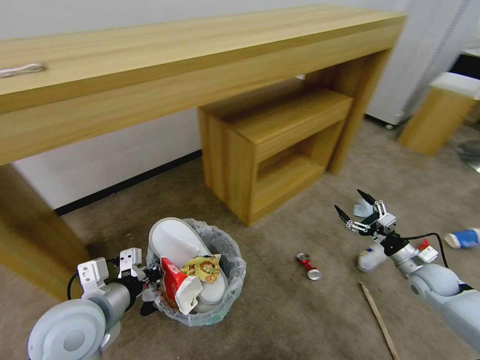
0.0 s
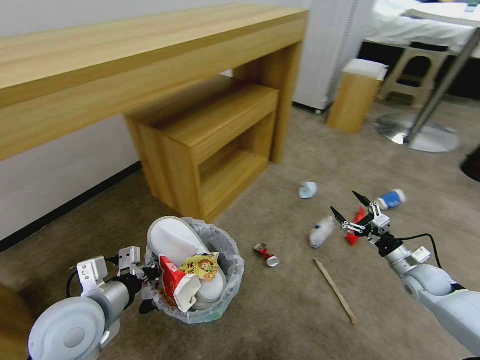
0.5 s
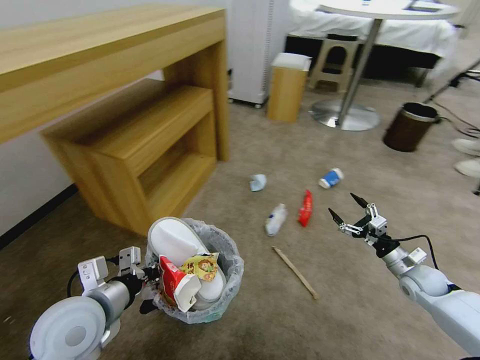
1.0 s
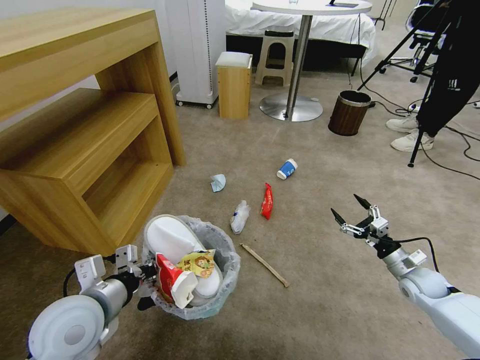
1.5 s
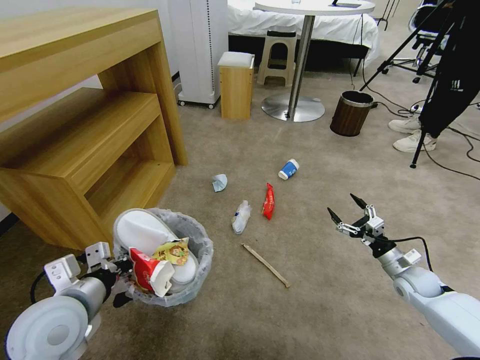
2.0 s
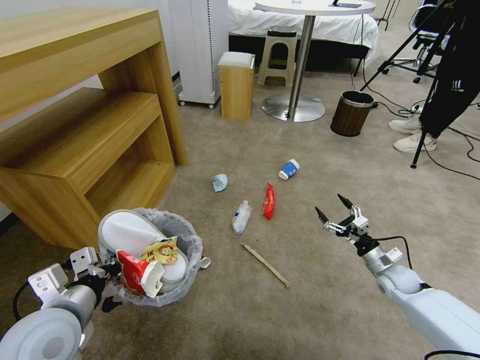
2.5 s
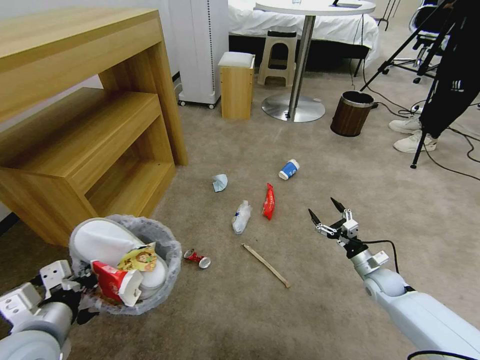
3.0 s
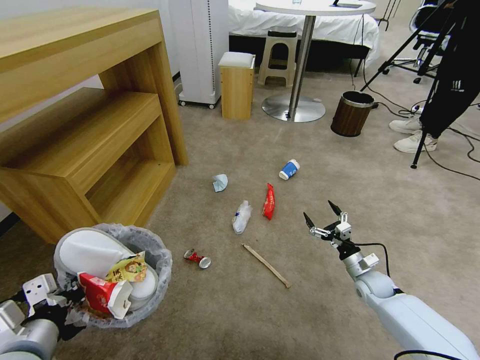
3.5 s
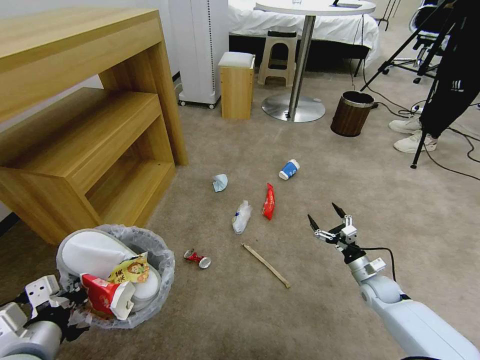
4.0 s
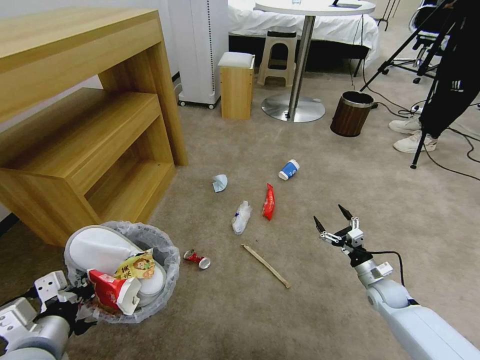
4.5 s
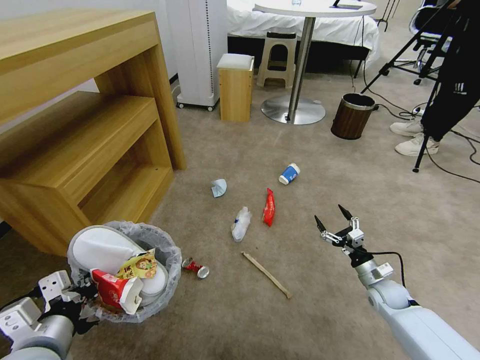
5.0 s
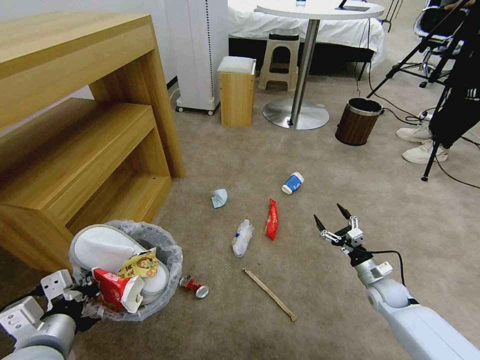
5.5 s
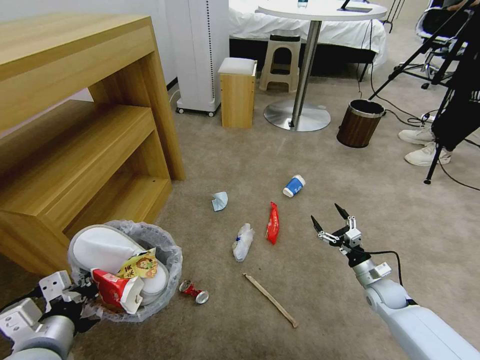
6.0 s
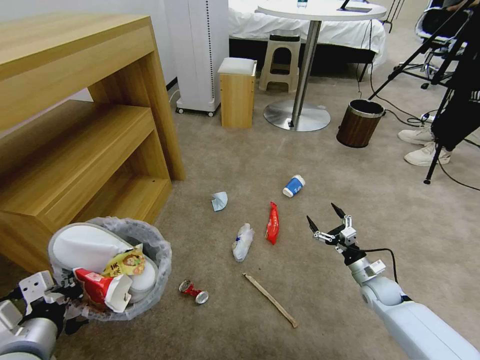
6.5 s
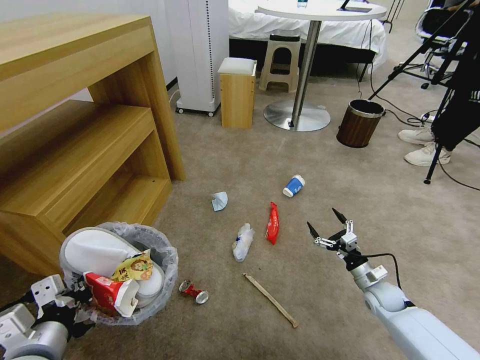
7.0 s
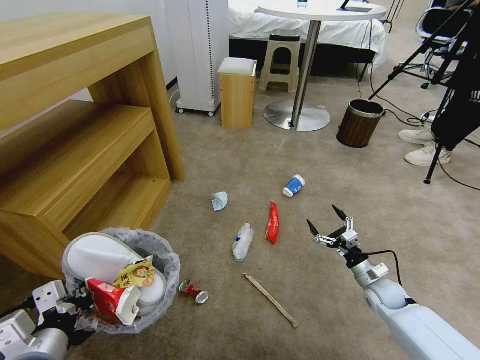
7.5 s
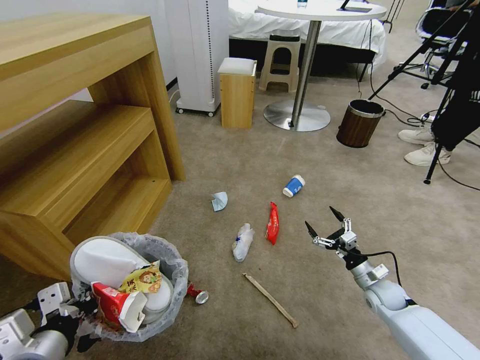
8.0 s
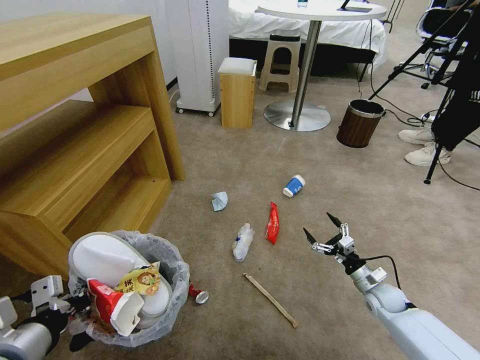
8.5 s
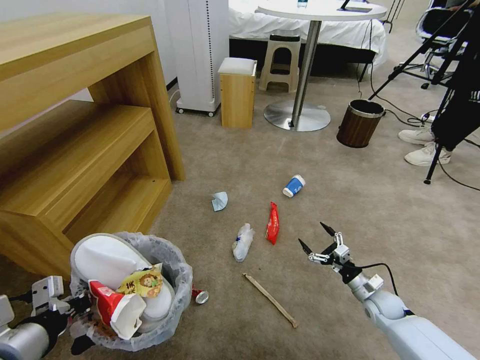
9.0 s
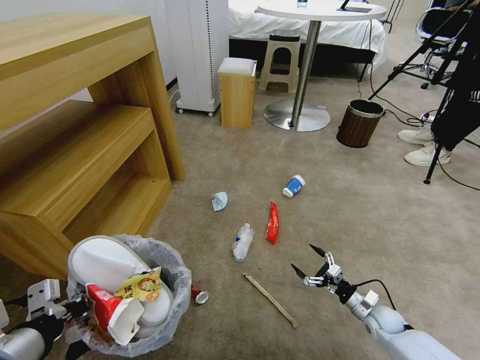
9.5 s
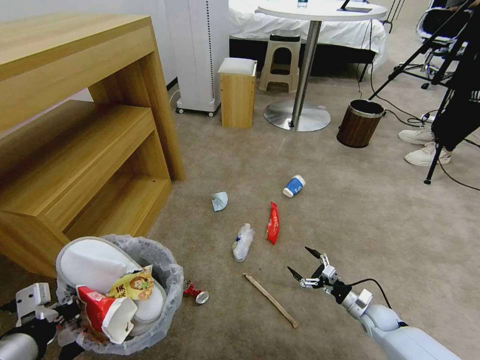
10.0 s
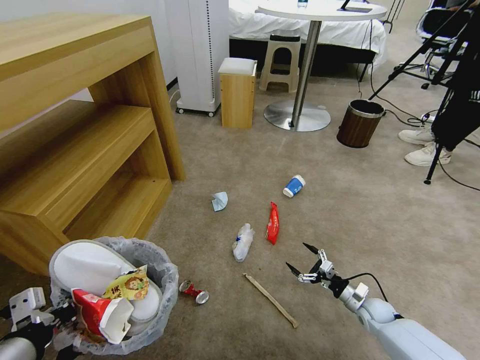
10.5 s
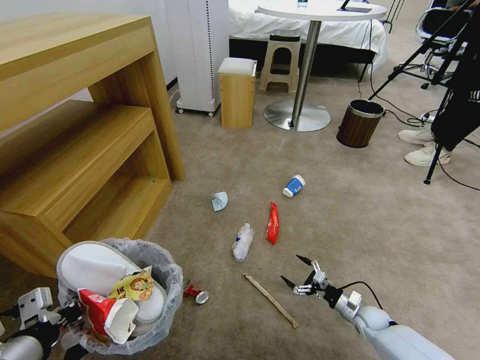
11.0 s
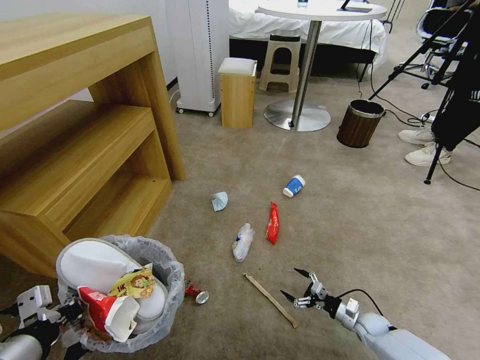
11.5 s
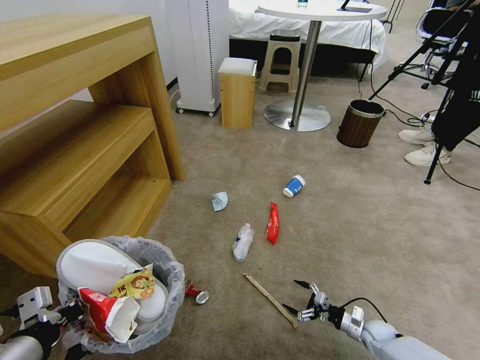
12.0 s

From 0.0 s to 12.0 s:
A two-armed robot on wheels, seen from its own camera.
Task of the whole recording: Pick up the trash bin and place the garbage on the floor into it.
From 2.0 s to 4.0 s: The left gripper heads backward, covering some 10 cm, while the right gripper moves to the left and downward, approximately 10 cm.
From 6.0 s to 8.0 s: The grippers move only a little.
From 8.0 s to 10.0 s: The right gripper travels downward by about 10 cm. The left gripper ends up roughly 5 cm from where it was.
From 10.0 s to 12.0 s: The right gripper travels downward by roughly 5 cm.

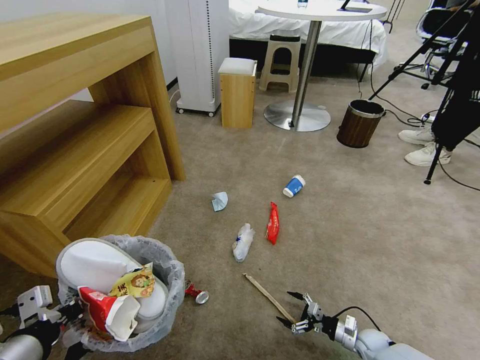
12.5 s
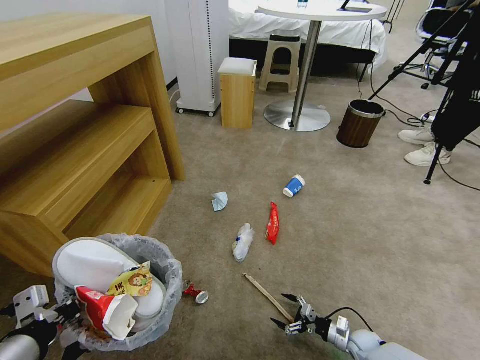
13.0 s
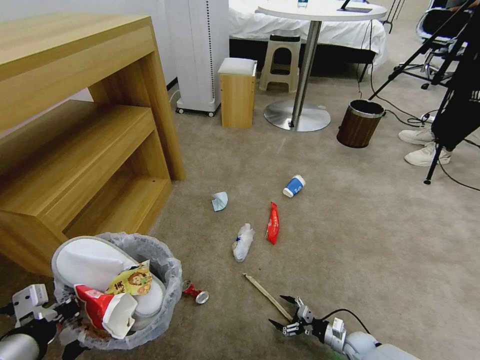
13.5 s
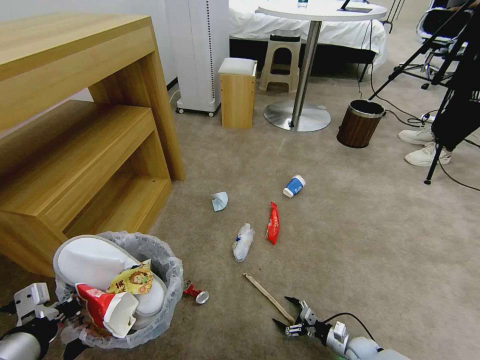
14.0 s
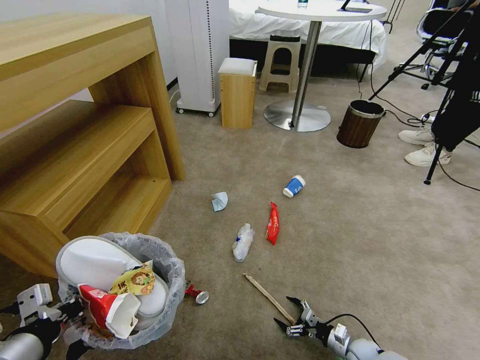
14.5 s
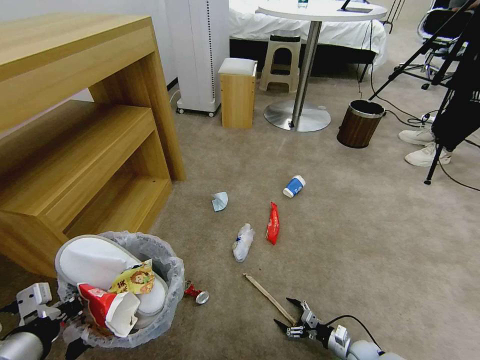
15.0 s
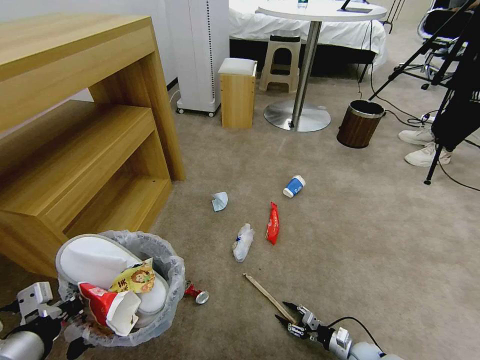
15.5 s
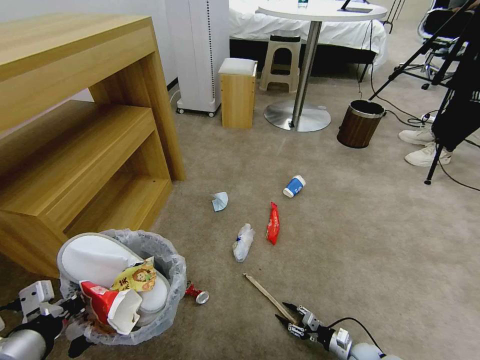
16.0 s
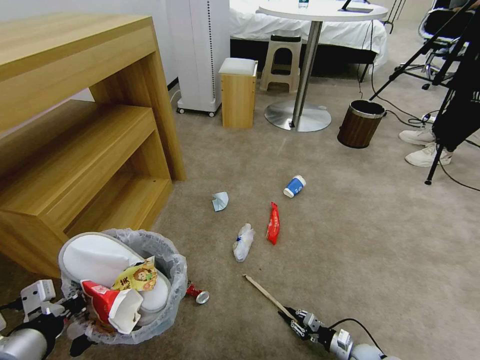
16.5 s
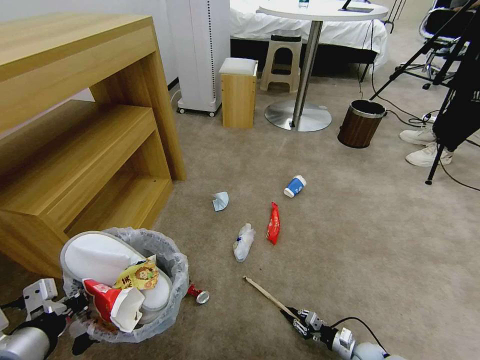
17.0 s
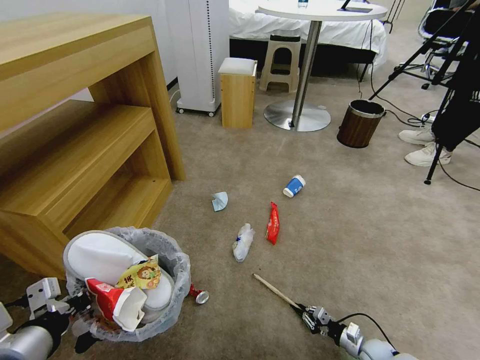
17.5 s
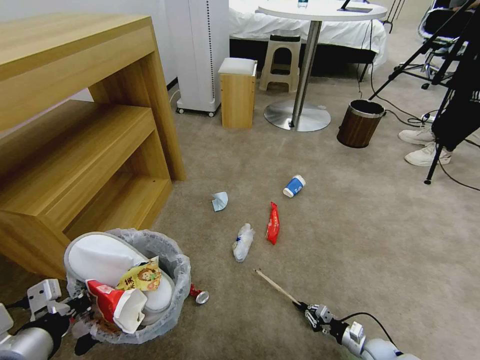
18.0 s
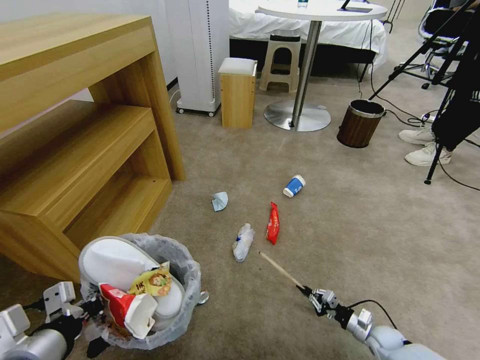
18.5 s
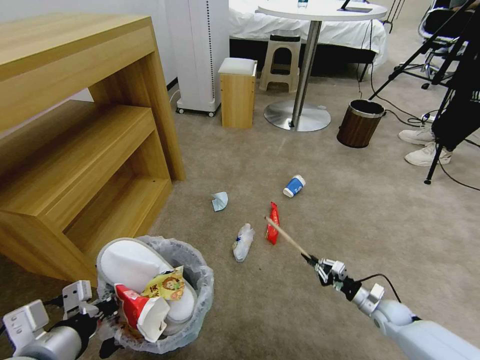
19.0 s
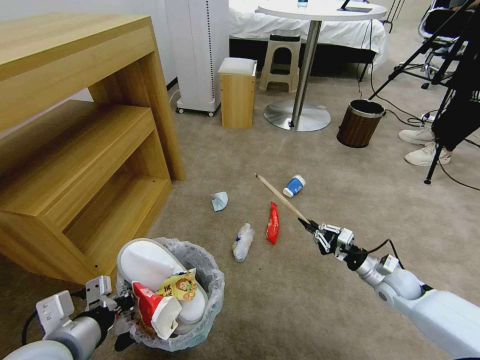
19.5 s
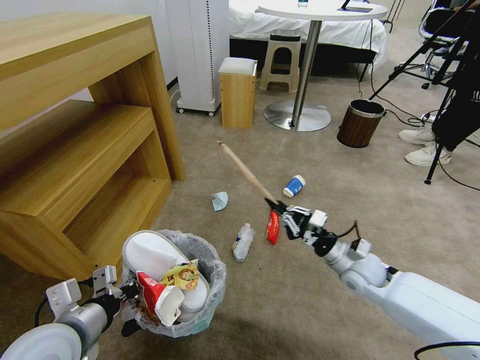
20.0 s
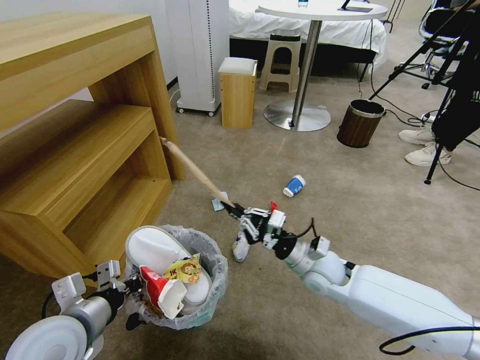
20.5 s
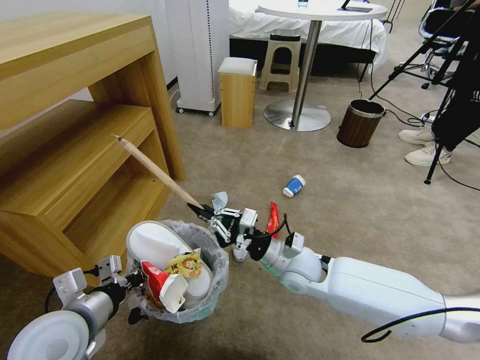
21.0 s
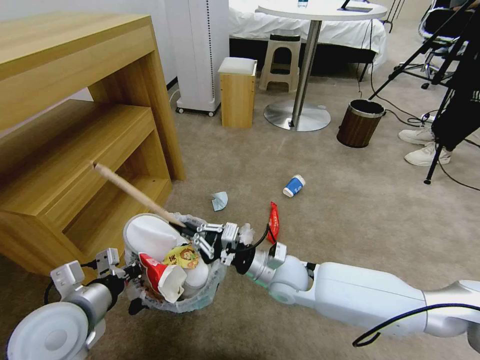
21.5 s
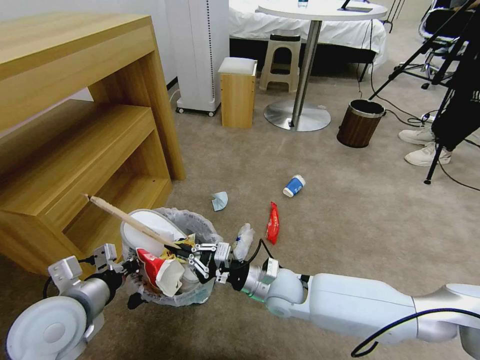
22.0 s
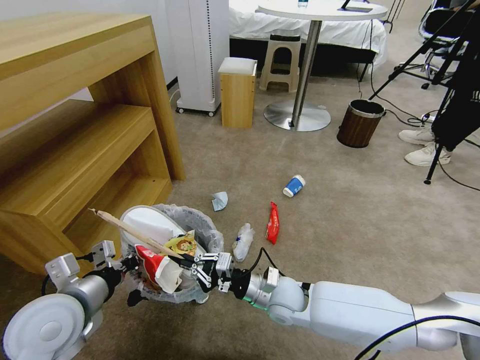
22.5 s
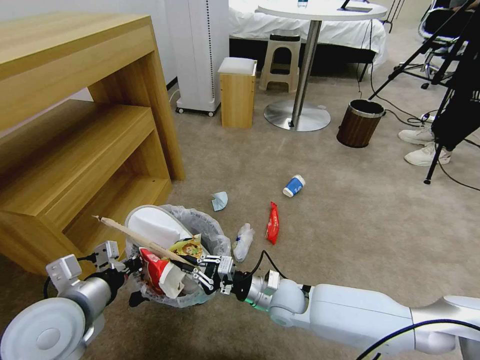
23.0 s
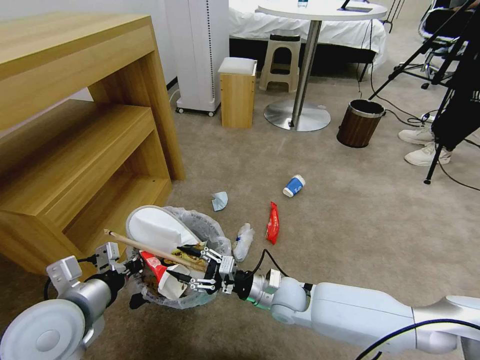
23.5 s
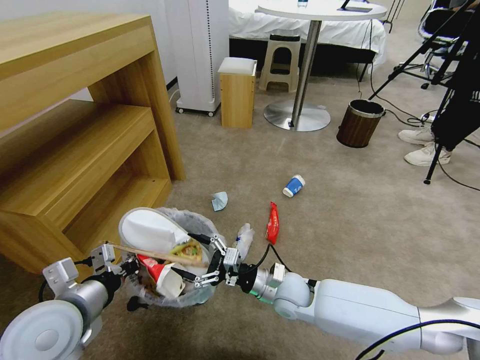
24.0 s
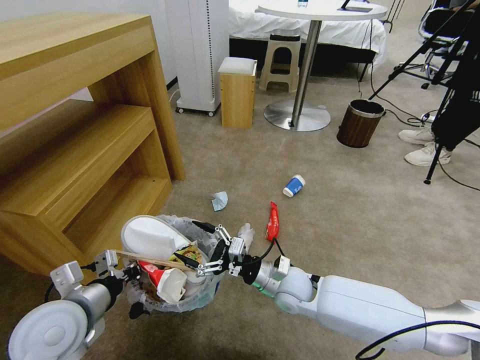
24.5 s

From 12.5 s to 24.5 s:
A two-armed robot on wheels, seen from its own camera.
Task of the whole recording: Pick up the trash bin and place the garbage on the floor into it.
From 12.5 s to 14.5 s: The grippers move only a little.
From 14.5 s to 16.5 s: The right gripper closes its fingers.
From 16.5 s to 18.5 s: The right gripper heads upward, covering approximately 5 cm.
From 18.5 s to 20.5 s: The left gripper goes about 5 cm forward; the right gripper goes approximately 35 cm upward and to the left.
From 20.5 s to 22.5 s: The right gripper shifts roughly 10 cm to the left and downward.
From 22.5 s to 24.5 s: The right gripper opens.

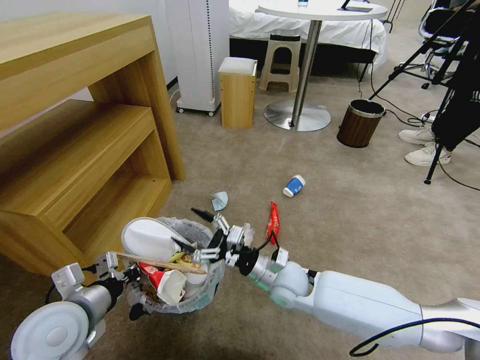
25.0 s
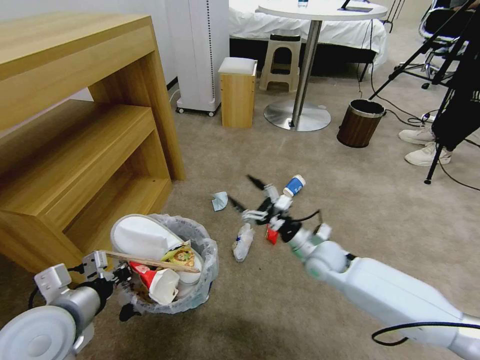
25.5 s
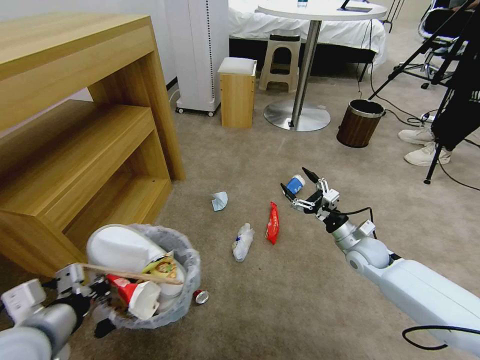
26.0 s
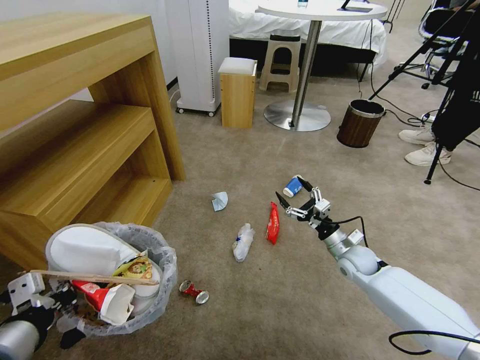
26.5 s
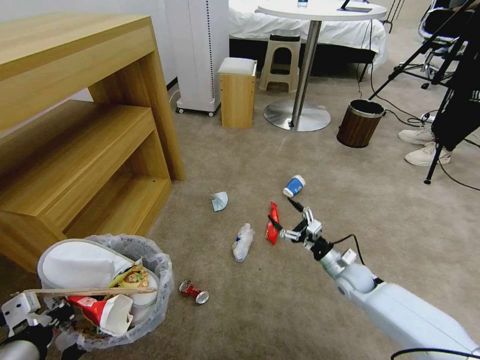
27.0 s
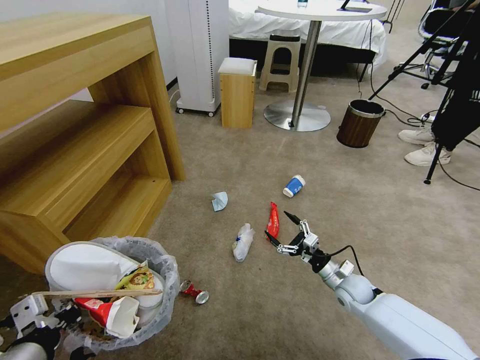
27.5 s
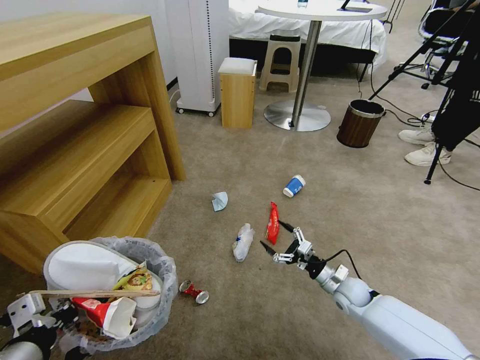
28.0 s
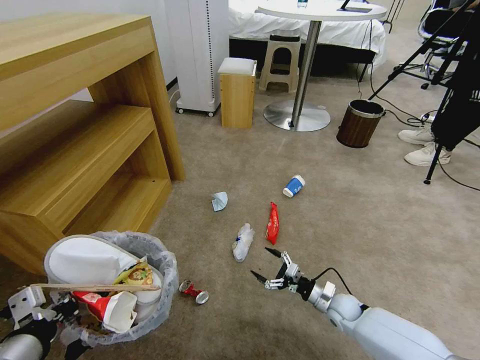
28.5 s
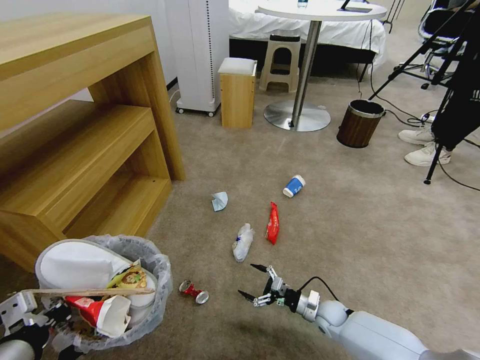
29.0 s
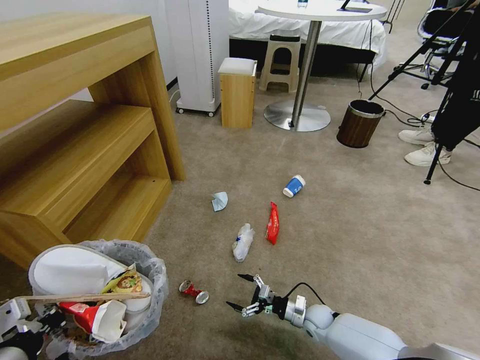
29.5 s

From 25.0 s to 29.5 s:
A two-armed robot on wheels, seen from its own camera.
Task of the whole recording: Pick up the trash bin and place the garbage on the floor into it.
From 25.0 s to 27.0 s: The right gripper heads to the right, covering roughly 20 cm, while the left gripper goes some 10 cm backward.
From 27.0 s to 29.5 s: The right gripper is displaced downward, to the left and backward by some 20 cm.
